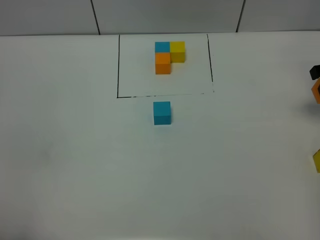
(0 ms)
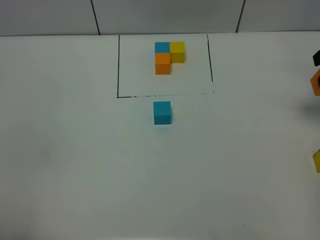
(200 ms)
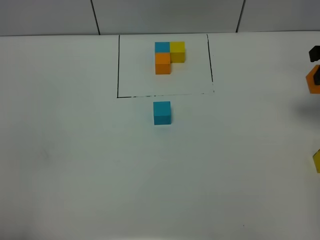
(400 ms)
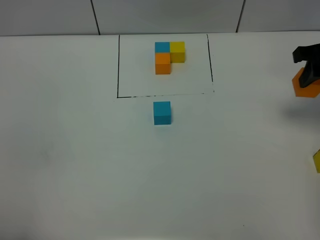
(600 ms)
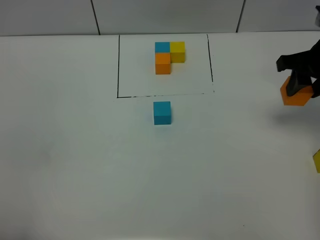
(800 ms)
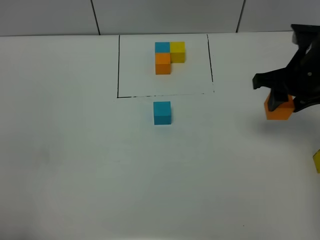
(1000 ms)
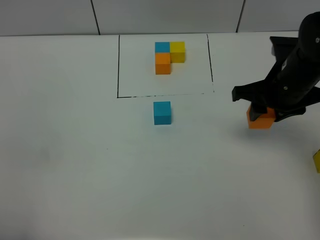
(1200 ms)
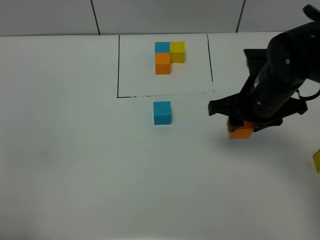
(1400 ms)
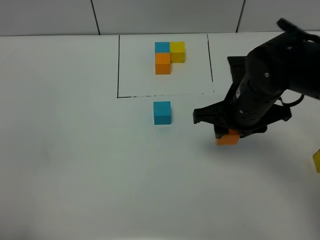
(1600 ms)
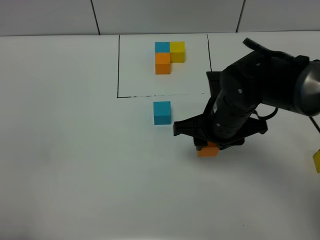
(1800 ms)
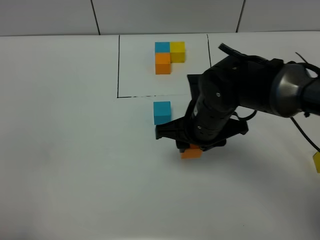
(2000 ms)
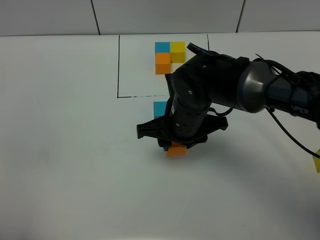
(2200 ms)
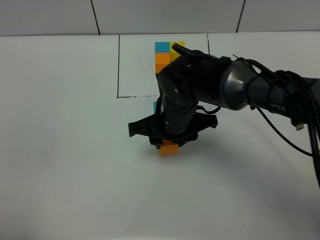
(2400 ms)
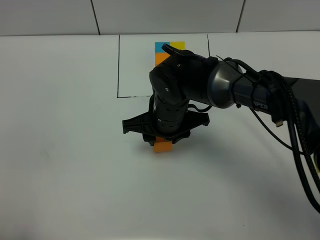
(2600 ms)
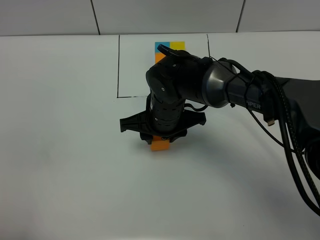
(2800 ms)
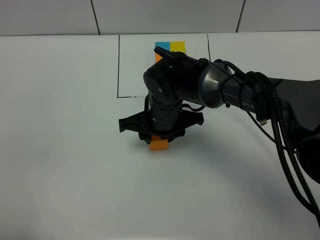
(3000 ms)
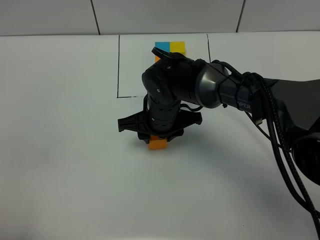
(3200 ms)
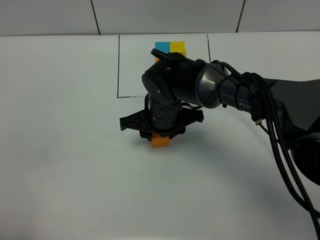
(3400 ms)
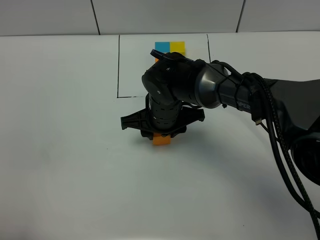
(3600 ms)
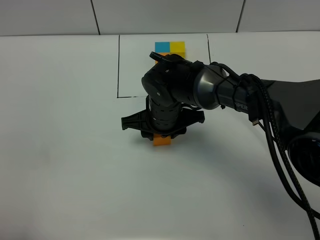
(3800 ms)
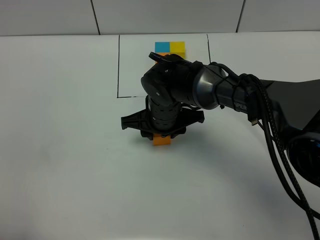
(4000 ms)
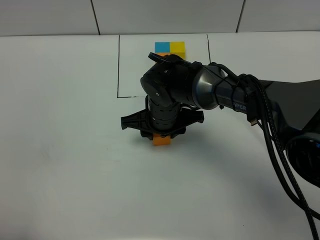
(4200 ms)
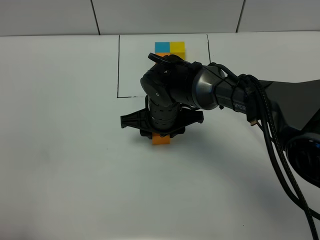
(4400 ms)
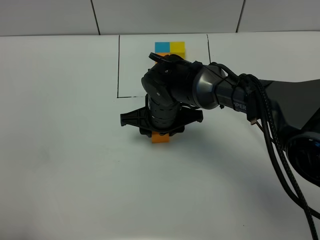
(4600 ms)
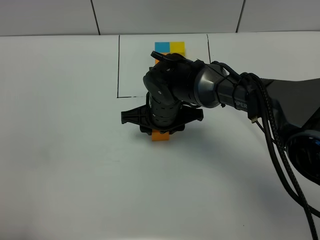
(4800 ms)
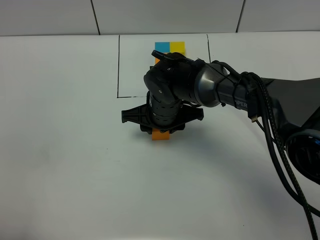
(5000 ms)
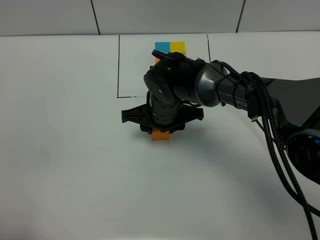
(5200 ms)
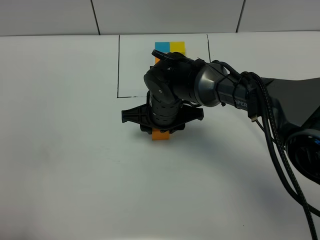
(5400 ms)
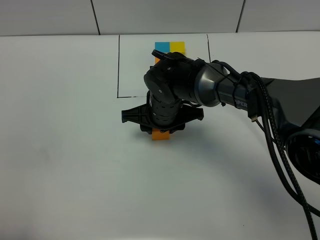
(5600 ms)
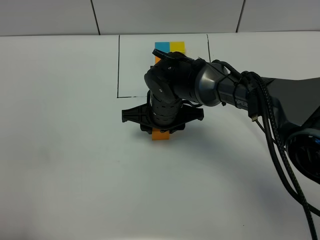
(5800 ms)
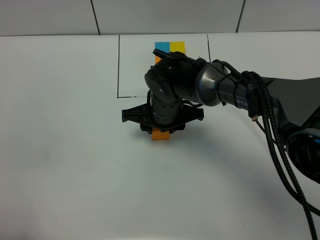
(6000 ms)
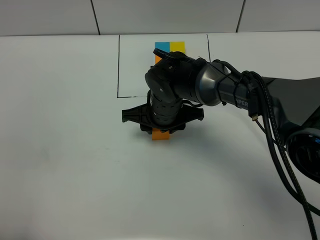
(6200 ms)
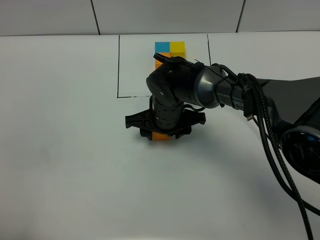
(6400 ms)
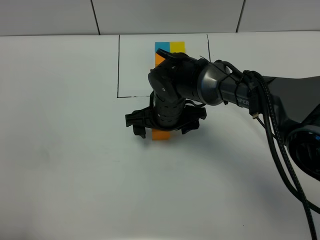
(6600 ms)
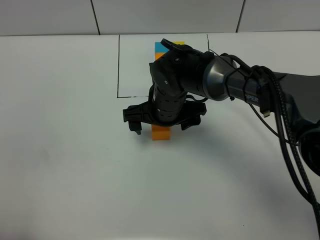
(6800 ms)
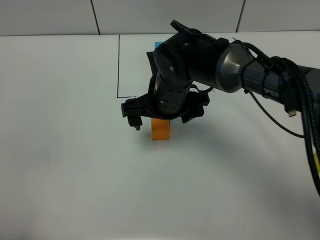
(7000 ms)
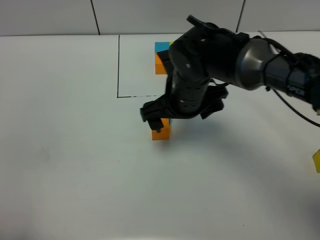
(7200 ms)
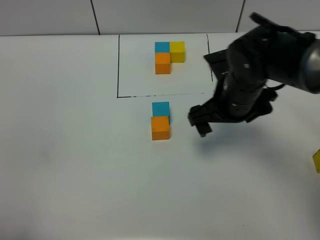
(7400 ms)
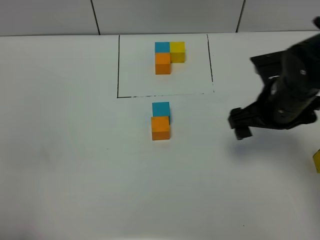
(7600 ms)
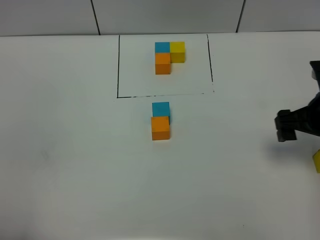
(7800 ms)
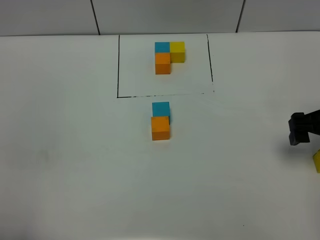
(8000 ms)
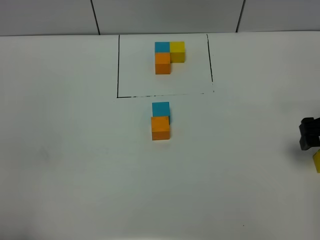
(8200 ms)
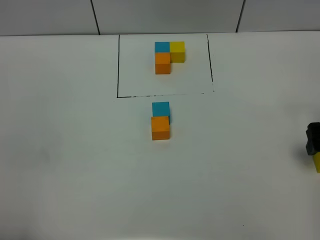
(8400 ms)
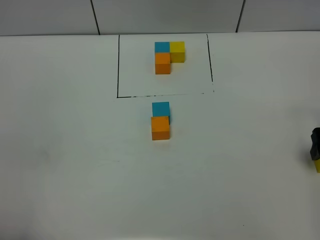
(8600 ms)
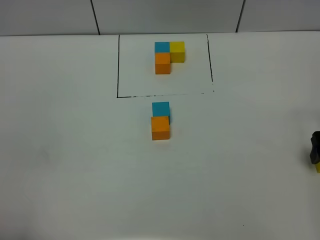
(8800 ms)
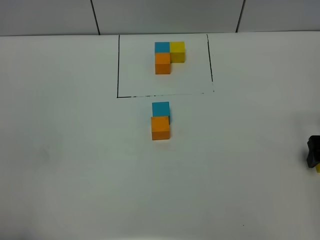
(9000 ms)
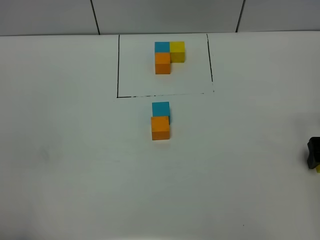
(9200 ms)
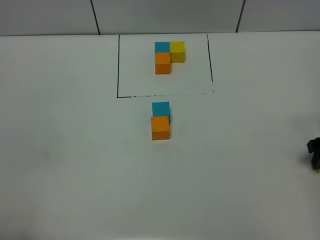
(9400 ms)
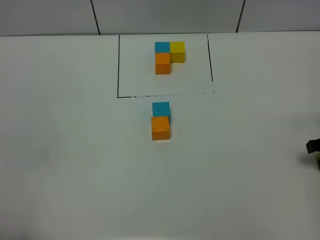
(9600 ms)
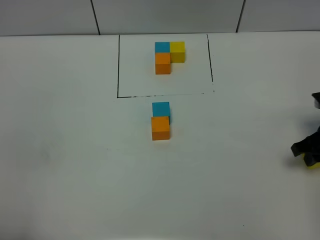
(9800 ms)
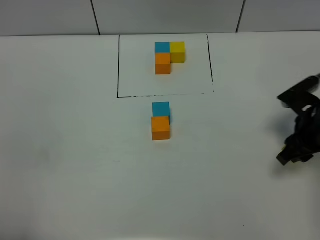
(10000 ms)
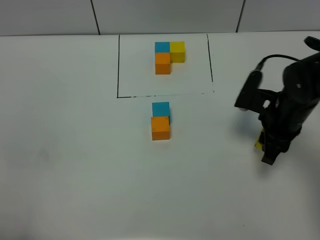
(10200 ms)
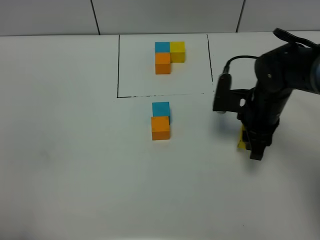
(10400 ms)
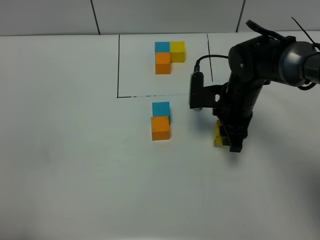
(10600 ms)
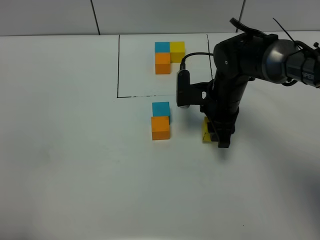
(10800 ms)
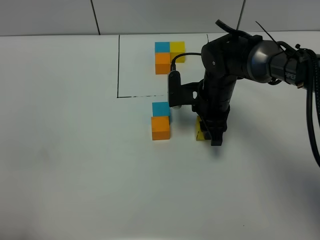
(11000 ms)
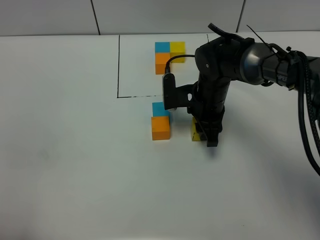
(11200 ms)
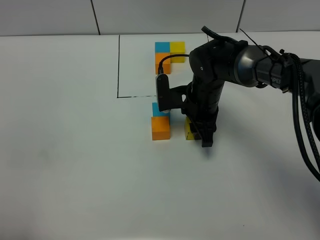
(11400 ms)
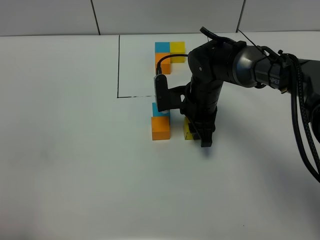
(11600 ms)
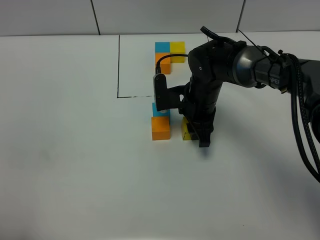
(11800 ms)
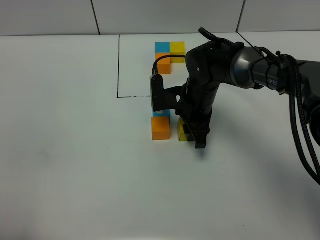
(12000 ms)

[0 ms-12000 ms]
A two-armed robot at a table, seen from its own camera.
Task of the whole recording: According to the building block template in front, assemble the scattered blocks together.
Step, 0 ms to 6400 ms: Put the orange build block on the behind of the blue build block.
0 ms to 1600 ms: The right gripper travels to the left by approximately 25 cm.
1600 ms to 3000 ms: The right gripper goes approximately 15 cm to the left and downward.
3000 ms to 4400 ms: The grippers move only a little.
4400 ms to 6000 ms: Neither gripper changes place.
6000 ms to 7600 ms: The right gripper goes roughly 20 cm to the right, and opens its fingers.
7600 ms to 9000 ms: The right gripper moves to the right and downward, some 20 cm.
9000 ms to 10400 ms: The right gripper moves to the left, some 20 cm, and closes its fingers.
10400 ms to 12000 ms: The right gripper travels to the left by roughly 10 cm.

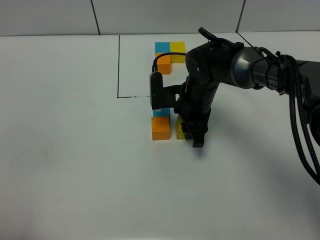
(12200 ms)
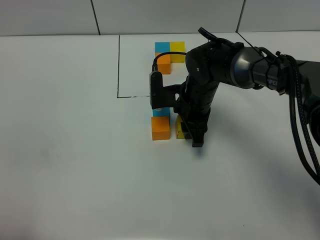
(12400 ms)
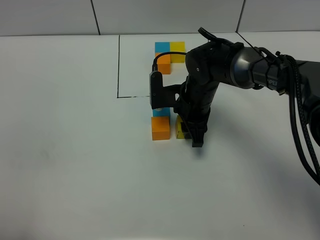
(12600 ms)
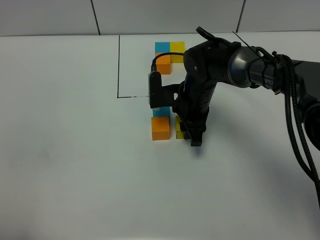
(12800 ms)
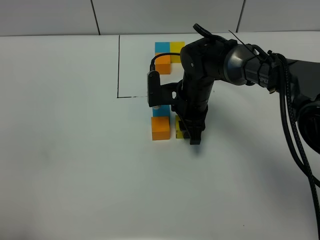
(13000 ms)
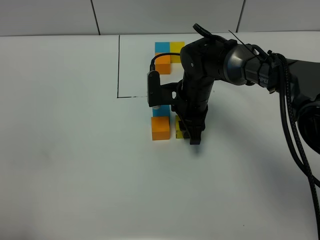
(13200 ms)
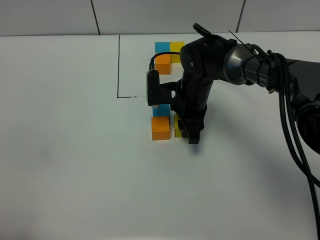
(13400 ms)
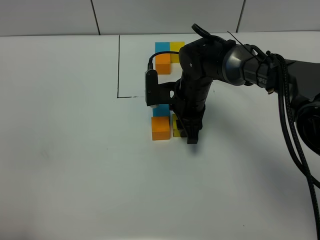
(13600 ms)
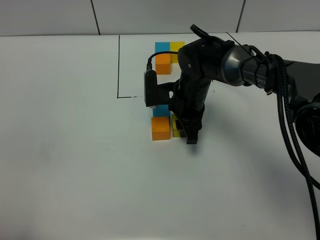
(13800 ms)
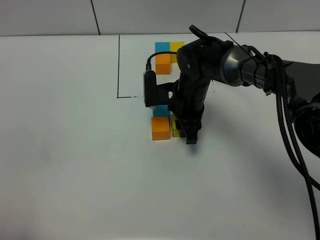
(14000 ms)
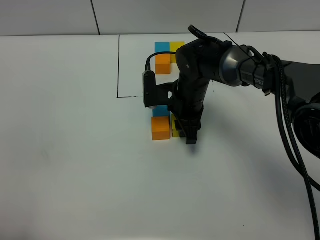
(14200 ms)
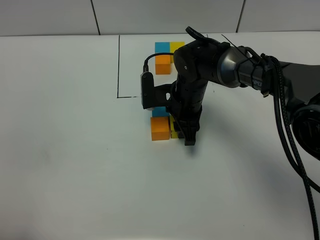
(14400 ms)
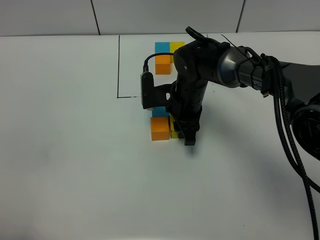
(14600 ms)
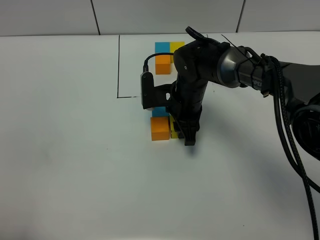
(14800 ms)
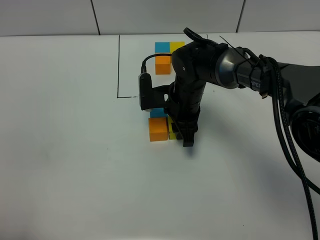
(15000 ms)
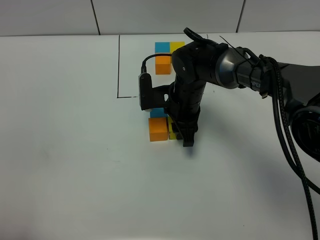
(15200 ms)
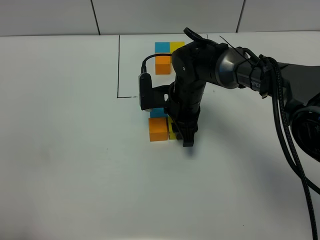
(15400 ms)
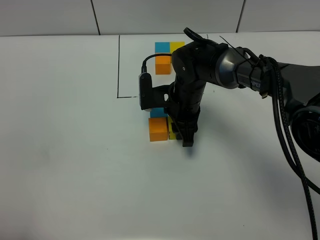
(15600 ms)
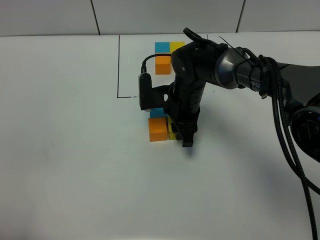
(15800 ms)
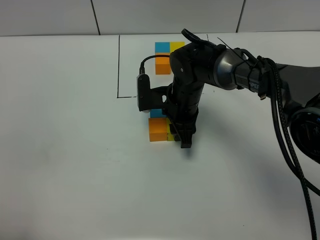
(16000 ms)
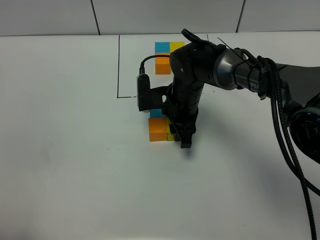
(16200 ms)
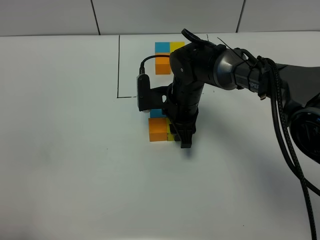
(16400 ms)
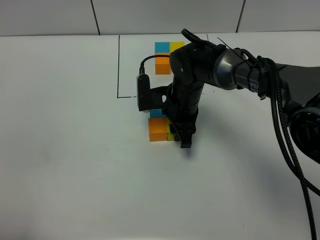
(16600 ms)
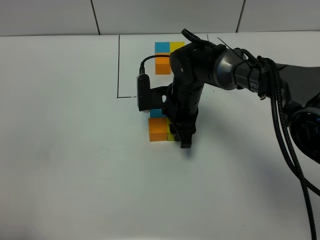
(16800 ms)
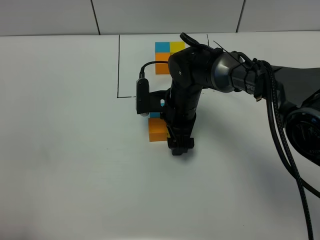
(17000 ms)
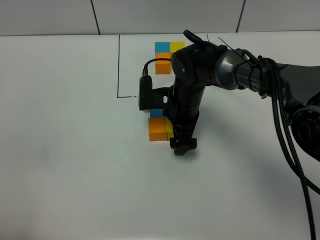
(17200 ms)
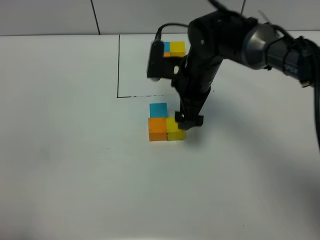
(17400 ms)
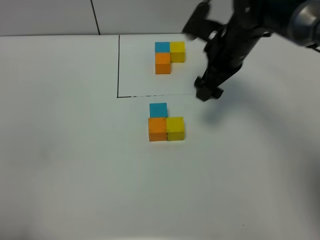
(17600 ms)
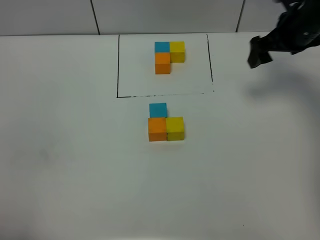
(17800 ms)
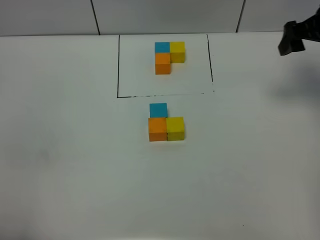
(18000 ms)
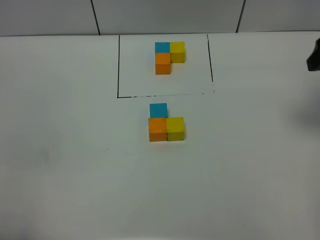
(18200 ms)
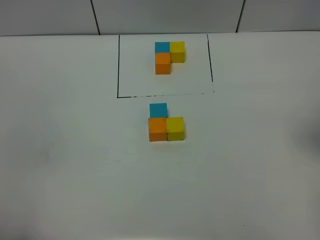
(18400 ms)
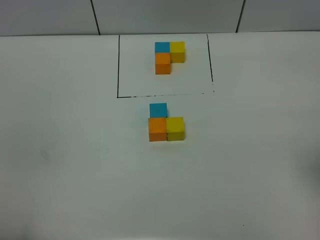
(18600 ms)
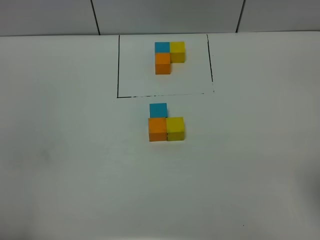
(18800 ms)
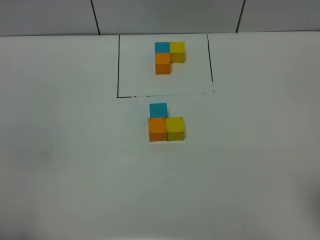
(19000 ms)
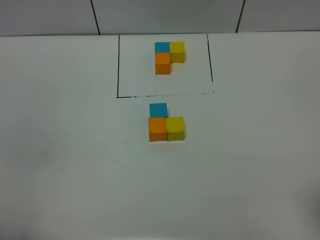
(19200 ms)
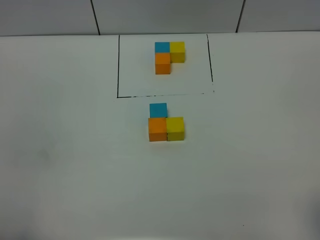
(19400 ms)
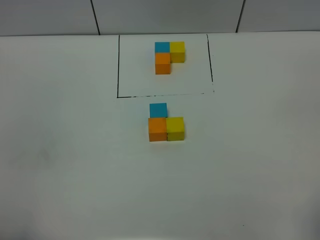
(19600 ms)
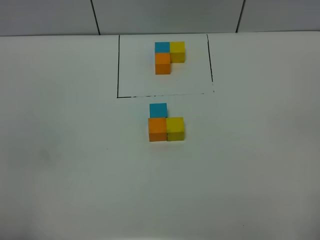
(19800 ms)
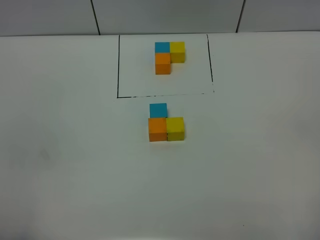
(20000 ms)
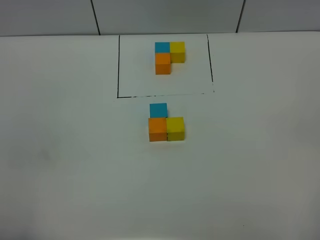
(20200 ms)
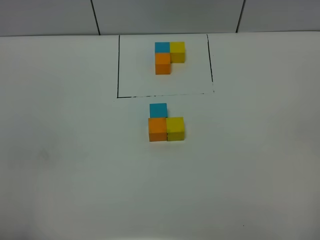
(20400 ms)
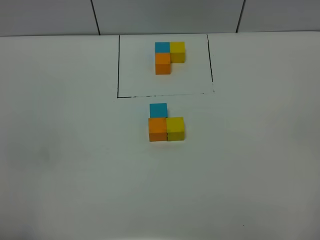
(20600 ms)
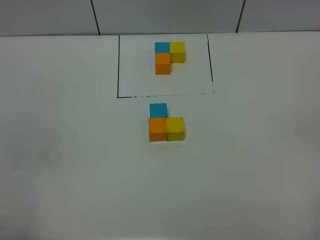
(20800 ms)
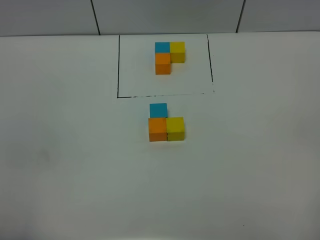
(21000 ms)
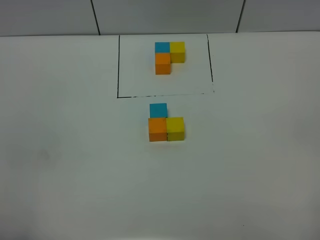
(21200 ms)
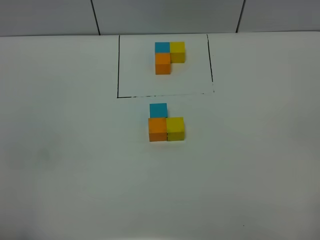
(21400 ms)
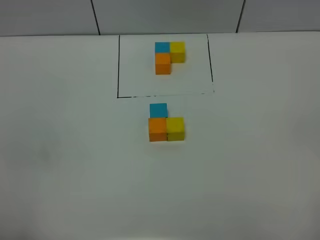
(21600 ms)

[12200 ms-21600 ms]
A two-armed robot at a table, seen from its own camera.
Task of the whole recording: According to the building block template in front, assemble the scattered blocks together.
Step, 12200 ms to 16800 ms: Put the yellow build block on the right of the blue build block.
12200 ms to 13800 ms: The grippers make only small movements.
13800 ms to 15400 ms: Neither gripper changes place.
15400 ms to 17000 ms: The right gripper opens up.
17000 ms to 18400 ms: The right gripper travels to the right, upward and backward by approximately 40 cm.
20000 ms to 21600 ms: The two grippers keep their place.
